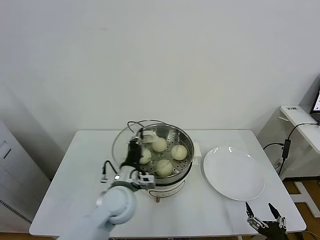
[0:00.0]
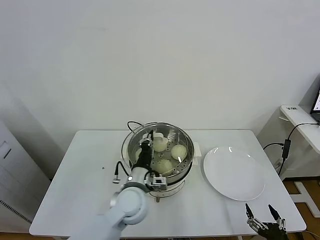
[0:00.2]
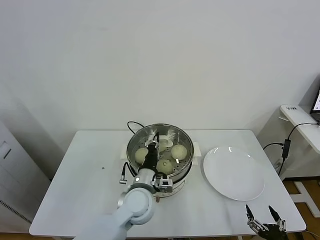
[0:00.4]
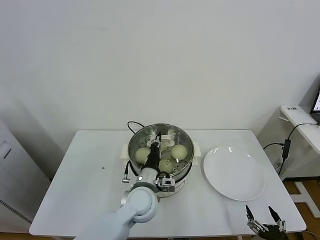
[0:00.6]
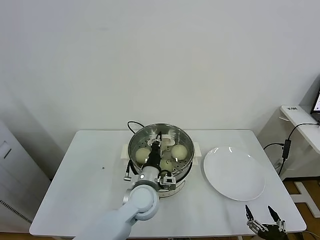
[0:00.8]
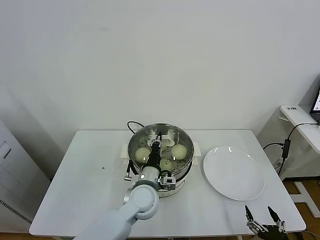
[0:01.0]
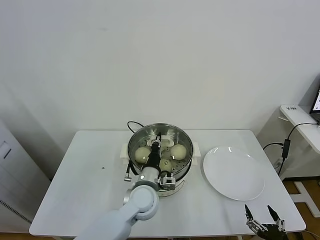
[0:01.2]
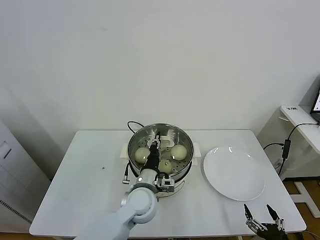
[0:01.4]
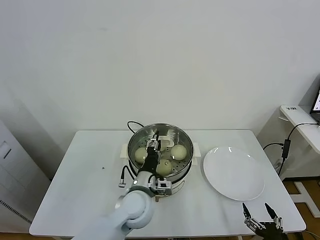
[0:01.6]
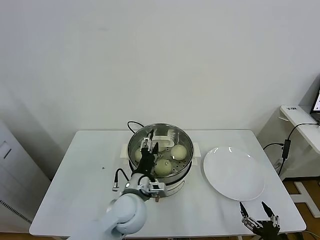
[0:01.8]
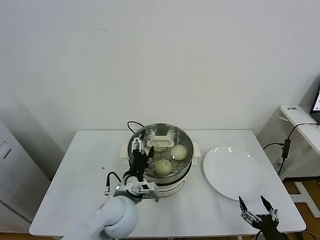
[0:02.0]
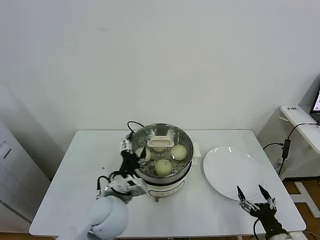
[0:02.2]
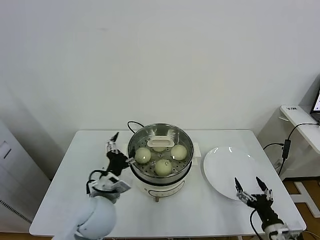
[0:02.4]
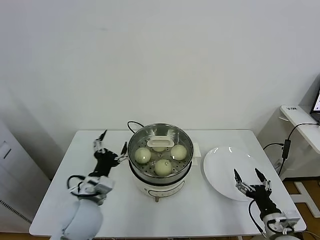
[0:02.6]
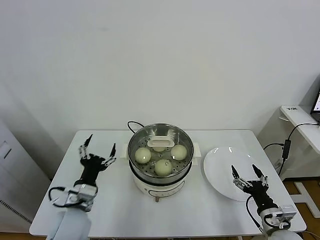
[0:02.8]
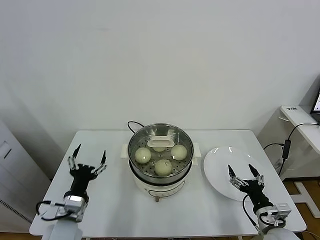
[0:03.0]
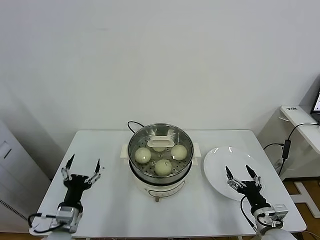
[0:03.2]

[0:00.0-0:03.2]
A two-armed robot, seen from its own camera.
Task of the whole recording: take steamed baozi put them in steamer.
Step, 0:00.0 to 0:02.0: Place the pot lid on the steamer with left gripper.
0:00.0 to 0:01.6: The left gripper travels to the right by roughly 5 cm, and opens.
0:01.6 to 0:03.2: The right gripper shifts some 15 cm forward. Meanwhile the left gripper moves to the left and backward, some 25 cm, and opens up.
